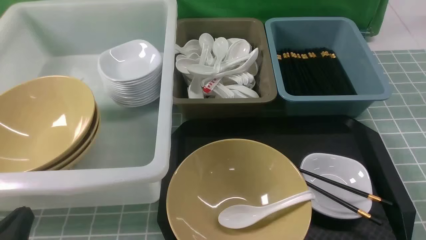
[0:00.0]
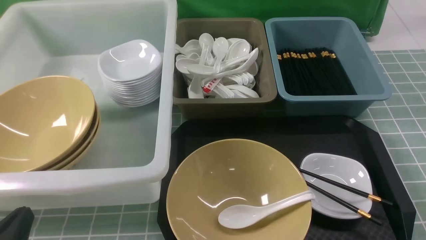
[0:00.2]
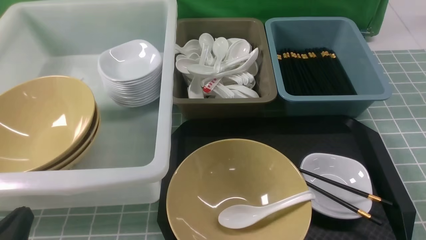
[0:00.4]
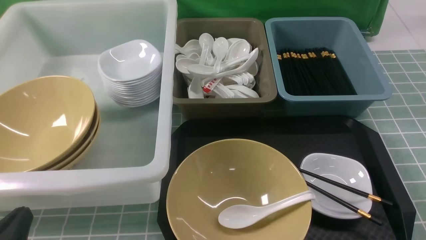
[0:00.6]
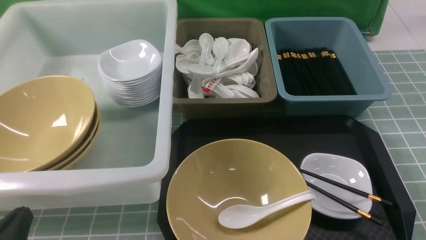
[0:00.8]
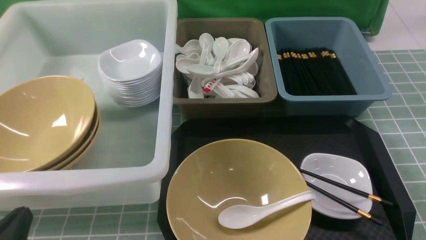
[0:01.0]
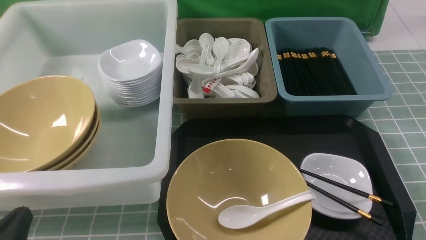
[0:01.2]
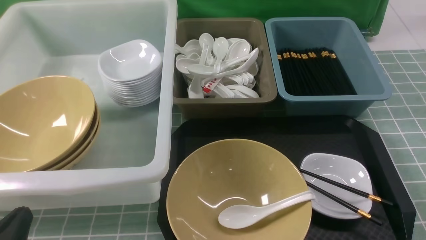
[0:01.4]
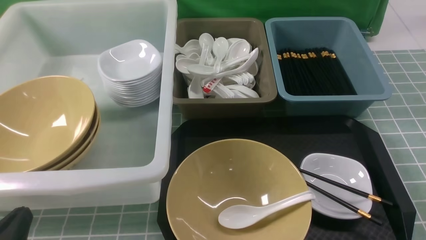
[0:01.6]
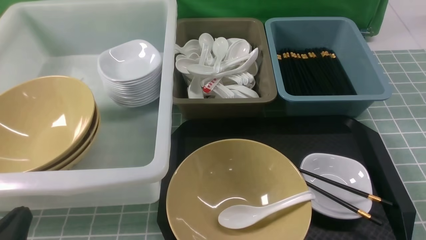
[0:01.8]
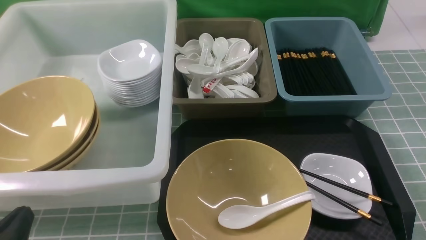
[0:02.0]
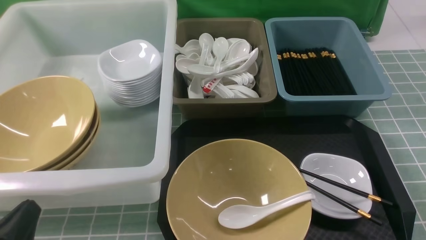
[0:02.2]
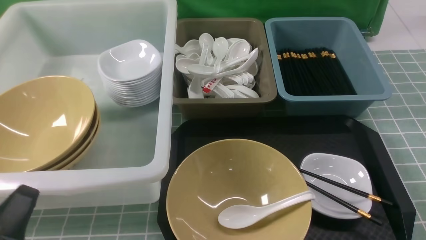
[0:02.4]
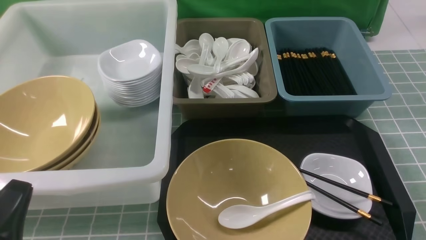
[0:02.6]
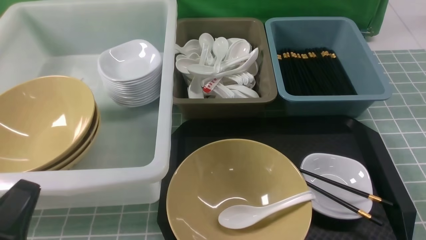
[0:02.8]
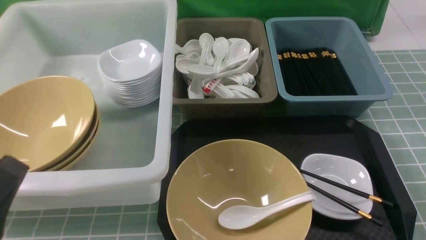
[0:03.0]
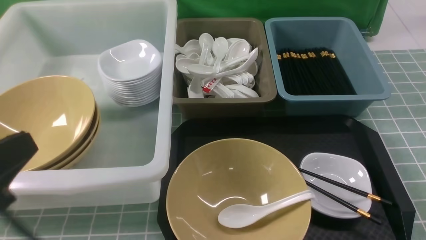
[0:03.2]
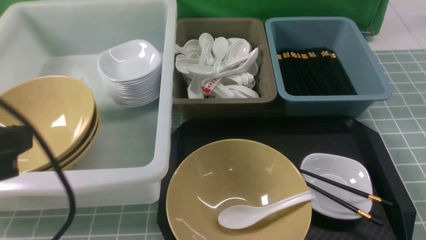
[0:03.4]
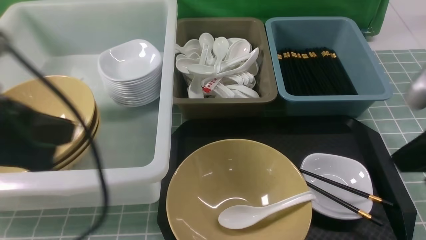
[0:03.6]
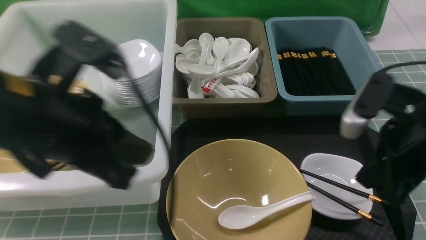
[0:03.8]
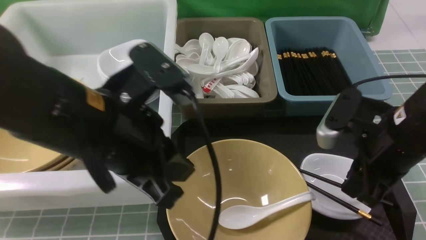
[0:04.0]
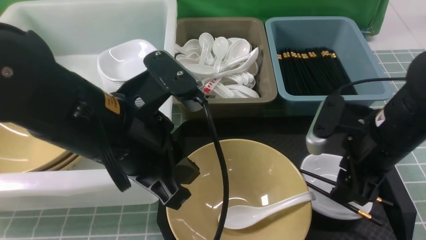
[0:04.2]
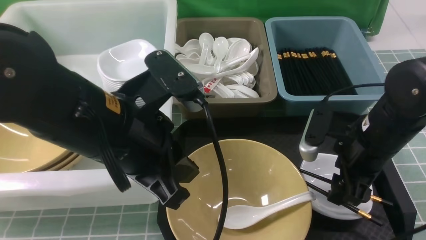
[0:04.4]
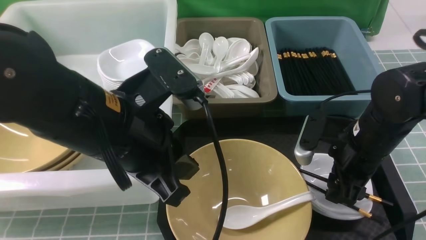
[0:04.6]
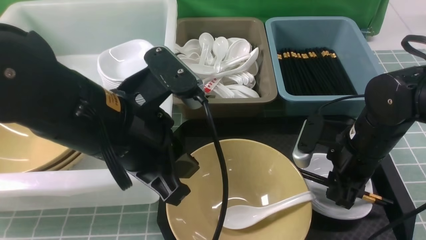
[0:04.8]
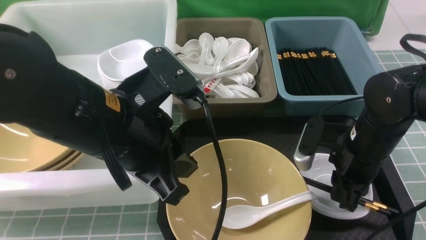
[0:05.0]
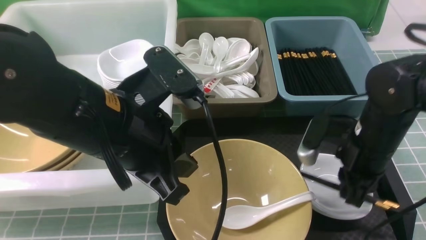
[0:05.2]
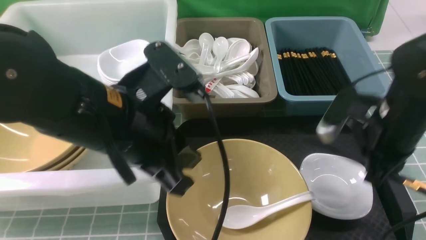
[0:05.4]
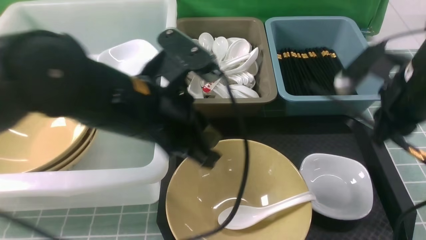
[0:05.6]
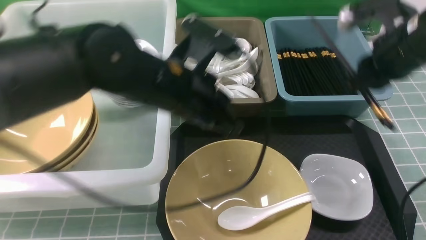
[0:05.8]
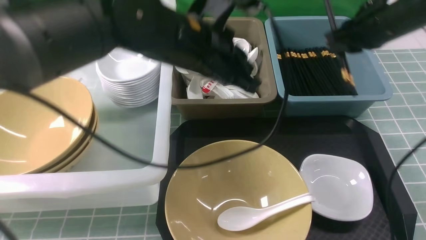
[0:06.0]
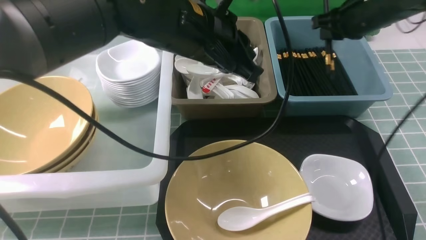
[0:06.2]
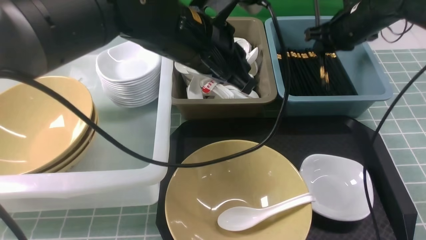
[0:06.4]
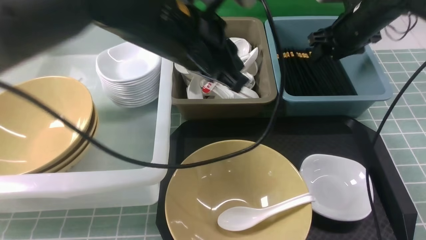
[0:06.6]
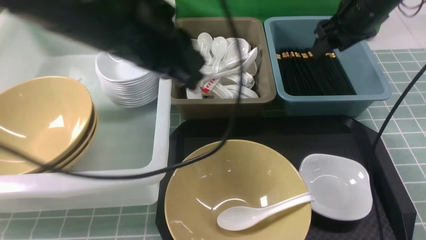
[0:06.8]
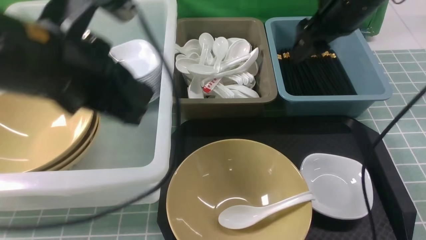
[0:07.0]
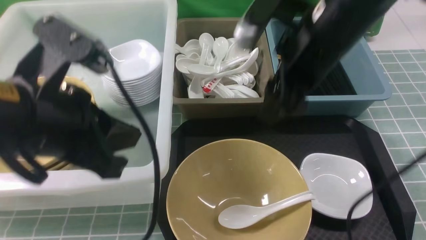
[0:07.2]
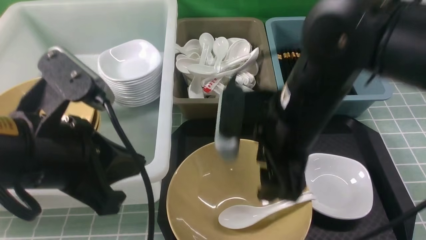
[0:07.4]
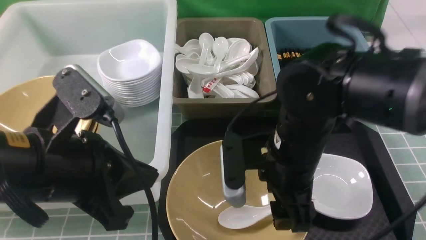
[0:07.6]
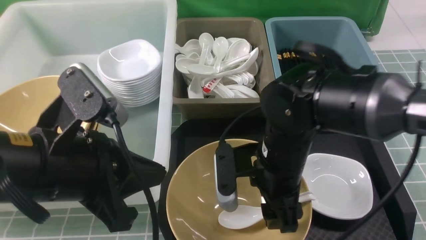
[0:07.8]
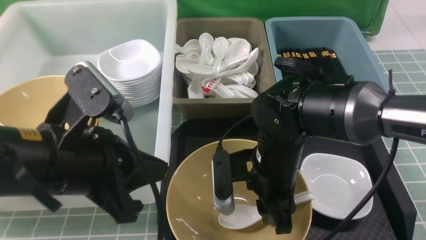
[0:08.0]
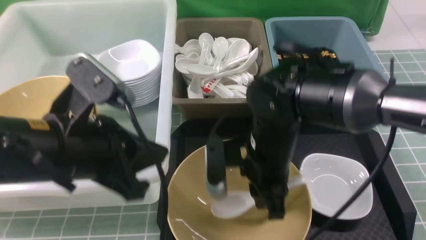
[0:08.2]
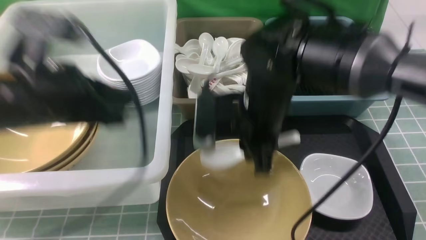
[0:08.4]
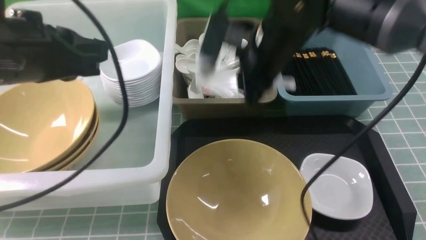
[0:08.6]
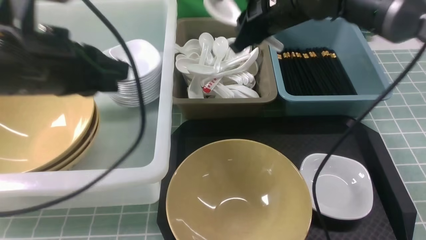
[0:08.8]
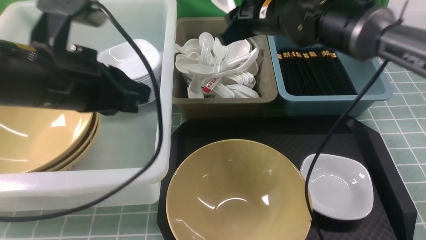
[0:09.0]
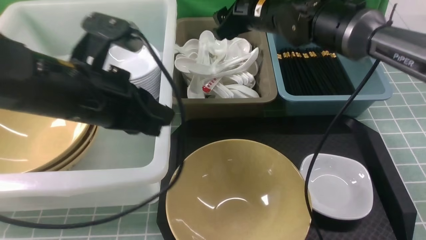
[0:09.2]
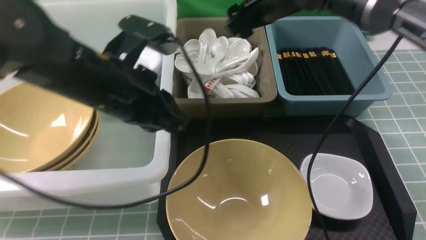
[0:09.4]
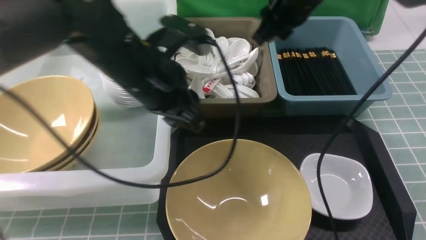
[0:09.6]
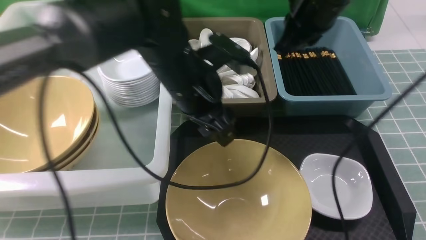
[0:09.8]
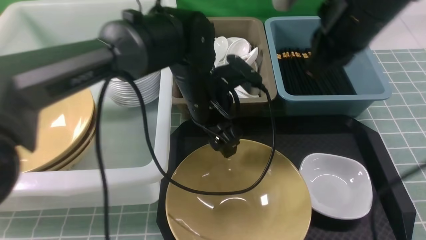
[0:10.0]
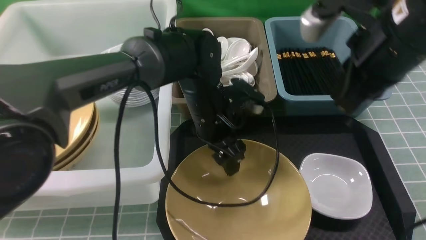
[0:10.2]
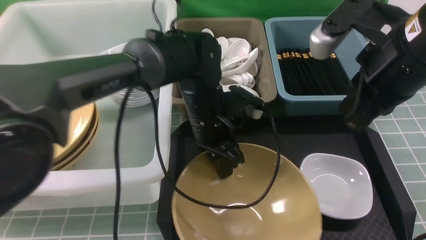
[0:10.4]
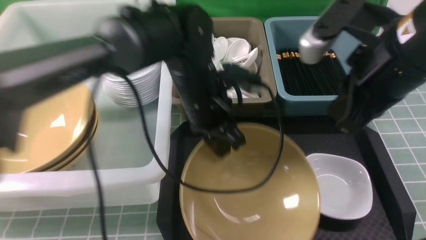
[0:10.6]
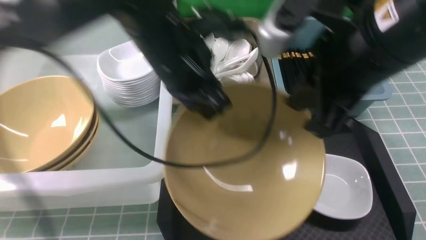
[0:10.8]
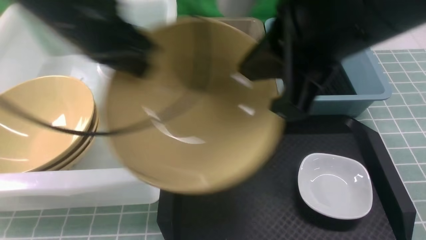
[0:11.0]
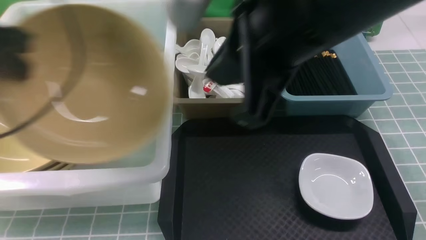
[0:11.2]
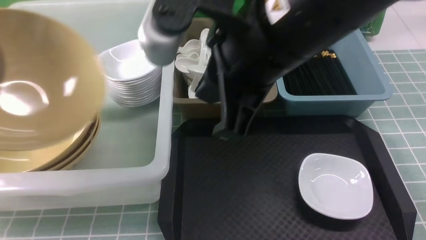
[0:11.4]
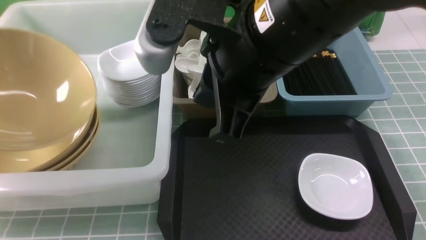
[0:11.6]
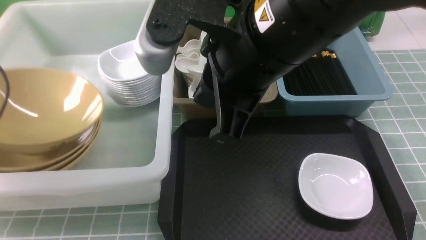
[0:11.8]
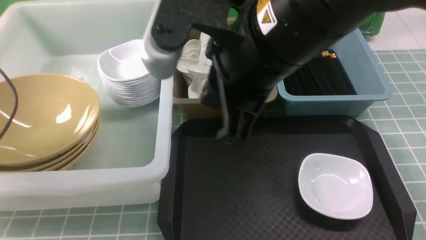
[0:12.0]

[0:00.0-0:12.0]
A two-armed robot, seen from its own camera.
Task of the whole recording: on blue table put chopsticks spoon bowls plates into blue grey white boxes.
Step, 0:00.0 to 0:05.0: use the right arm to grab the chopsticks.
Step, 0:05.2 to 0:06.6: use the right arm to put the chopsticks into the small storage box on the right.
Step, 0:06.8 to 0:08.2: use the right arm to grab the soup spoon in the middle.
Step, 0:08.4 to 0:09.4: use the right arm to put the soup spoon into the small storage box in the middle.
Step, 0:09.6 to 0:10.6: use the left arm to grab the yellow noodle bowl on the left.
Step, 0:10.8 to 0:12.0: use the left arm to put the noodle bowl into the large storage box on the left.
0:01.6 to 0:03.0: The left gripper moves upward, about 10 cm.
0:03.0 to 0:04.4: The left gripper is displaced forward, to the right and upward by some 20 cm; the right gripper heads forward and to the left, covering some 25 cm, and opens up.
0:04.4 to 0:06.0: The left gripper moves forward and to the right, about 10 cm. The right gripper travels forward and upward by approximately 15 cm, and closes up.
0:06.0 to 0:07.6: The left gripper heads backward and to the left, covering roughly 20 cm, while the right gripper travels to the left and backward by approximately 20 cm, and opens its fingers.
0:07.6 to 0:09.0: The left gripper moves forward, some 10 cm. Meanwhile the right gripper travels forward by about 20 cm, and closes up.
0:09.0 to 0:10.4: The right gripper moves backward and to the right, roughly 20 cm, and closes, while the left gripper travels to the right, downward and forward by roughly 25 cm, and opens up.
0:10.4 to 0:12.0: The left gripper is displaced to the left by approximately 40 cm, and closes, then reopens; the right gripper is displaced to the left by some 15 cm.

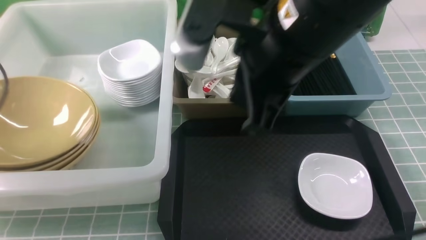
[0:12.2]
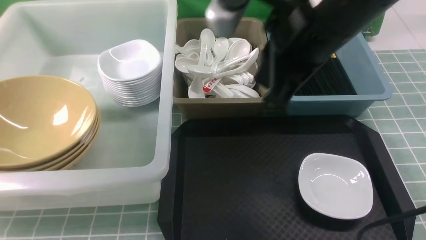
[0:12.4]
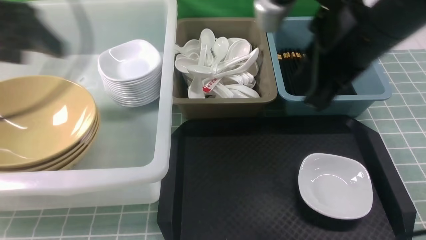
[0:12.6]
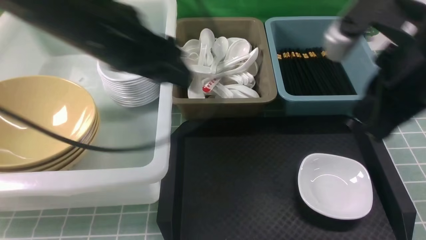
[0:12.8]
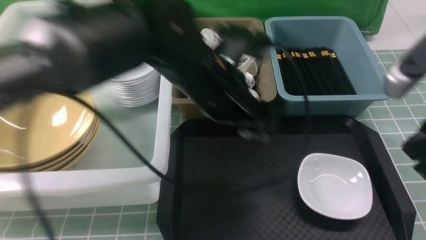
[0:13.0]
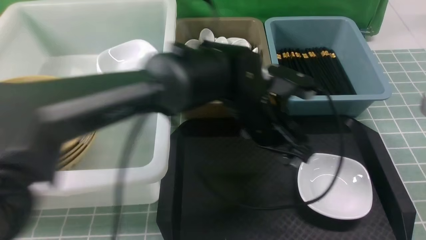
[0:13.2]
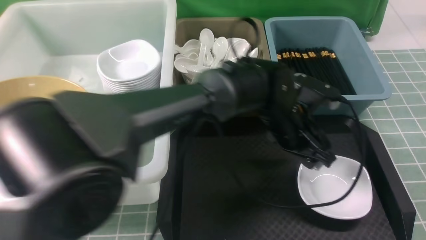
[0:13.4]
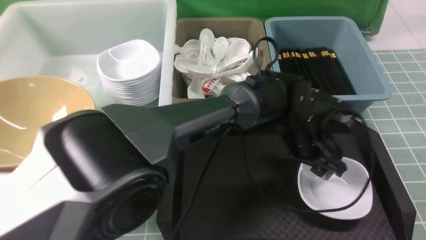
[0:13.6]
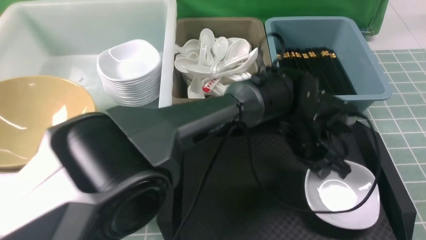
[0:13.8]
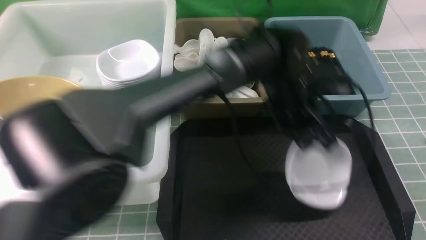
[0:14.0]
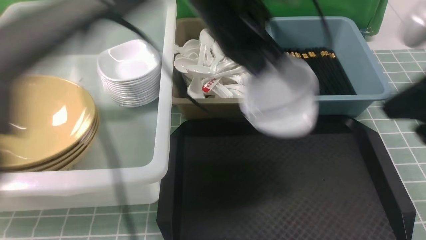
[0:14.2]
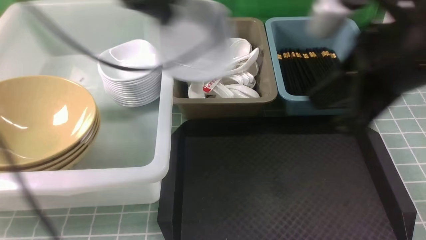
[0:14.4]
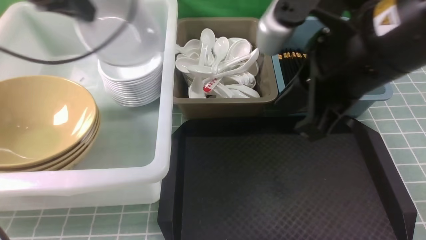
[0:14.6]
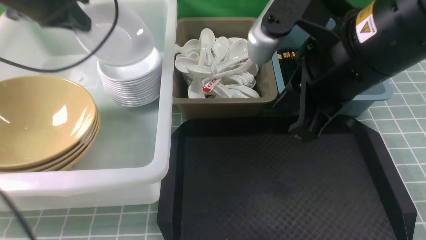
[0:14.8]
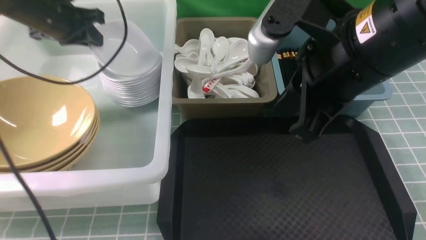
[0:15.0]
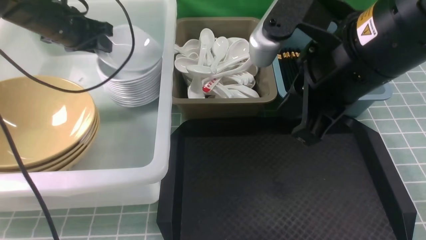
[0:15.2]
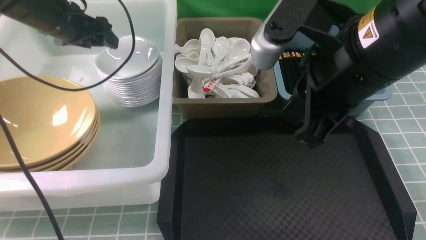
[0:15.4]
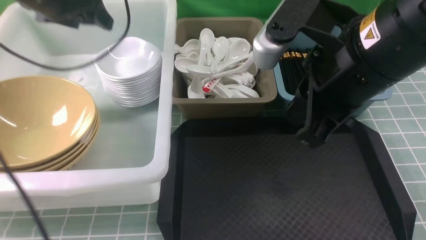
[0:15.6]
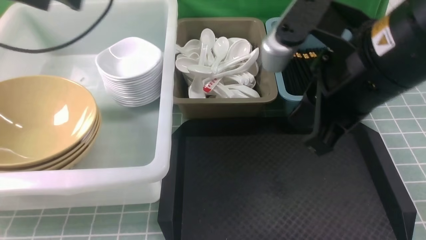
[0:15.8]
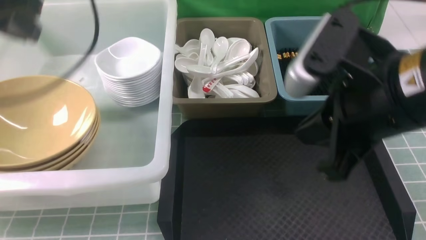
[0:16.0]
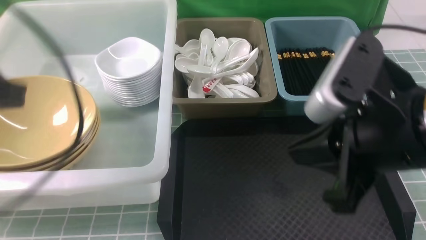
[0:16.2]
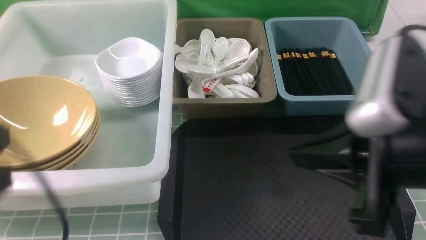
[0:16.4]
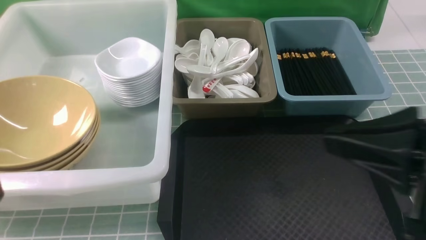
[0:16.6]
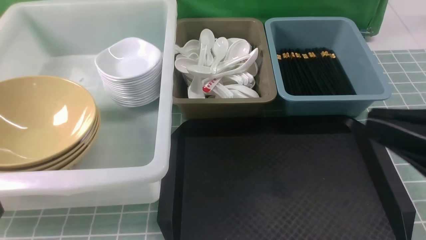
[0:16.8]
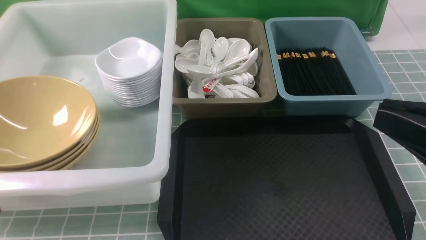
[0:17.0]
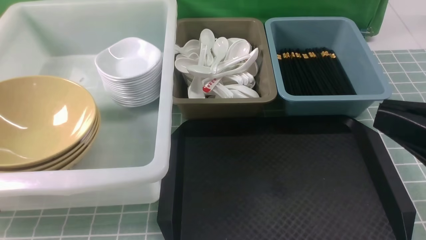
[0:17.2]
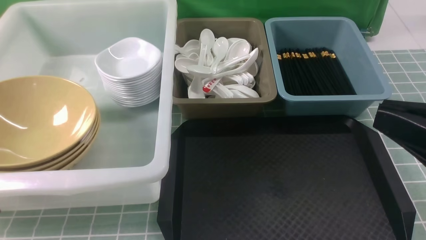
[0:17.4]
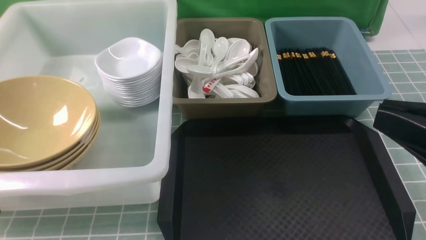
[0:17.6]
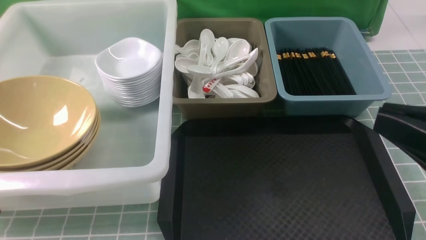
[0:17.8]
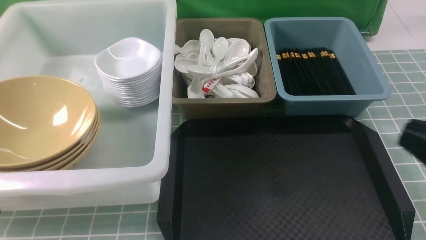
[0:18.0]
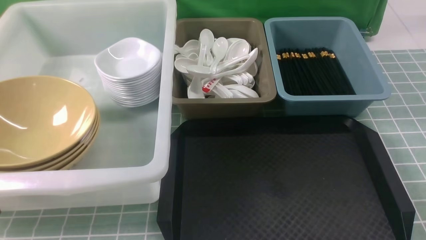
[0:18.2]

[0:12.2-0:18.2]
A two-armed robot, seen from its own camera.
Task of the whole recording: on blue table put chopsticks spoon bowls plates into blue grey white boxes.
Step, 0:12.2 to 0:14.0: use the left arm to grab the plate.
Step, 0:14.2 to 0:15.6: use the left arm to put the plate into the large storage box on the left.
0:12.2 to 0:13.8: The right gripper heads to the right and backward, covering about 20 cm, while the left gripper goes about 50 cm to the right, and closes.
0:13.8 to 0:15.2: The left gripper travels to the left by approximately 40 cm, while the right gripper moves to the left and forward, about 15 cm.
0:15.2 to 0:16.6: The left gripper is displaced backward by about 40 cm, and closes, while the right gripper moves backward and to the right, some 10 cm.
0:16.6 to 0:18.2: The right gripper travels to the right and downward by about 10 cm.
